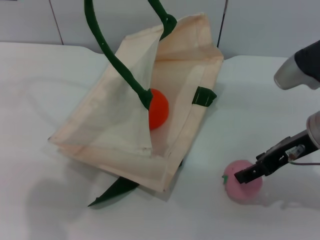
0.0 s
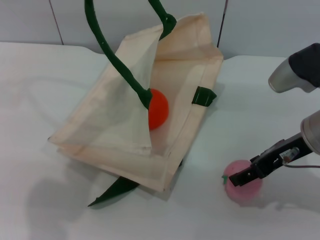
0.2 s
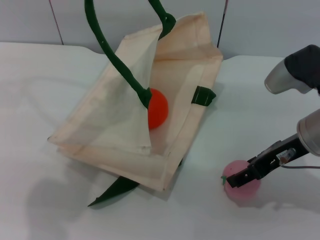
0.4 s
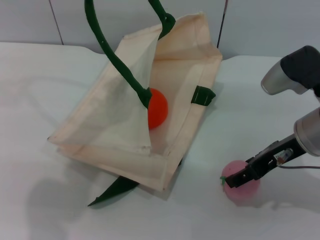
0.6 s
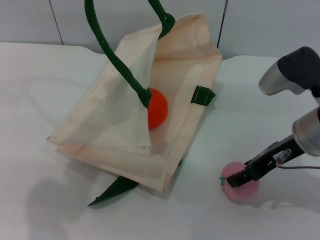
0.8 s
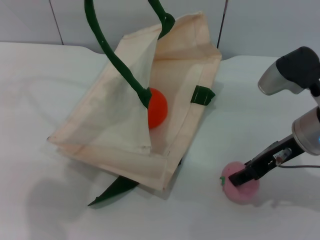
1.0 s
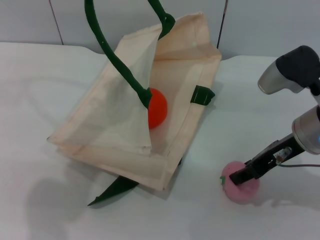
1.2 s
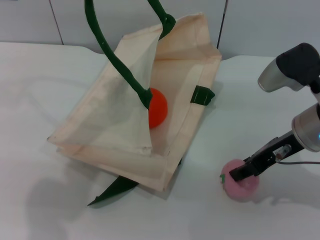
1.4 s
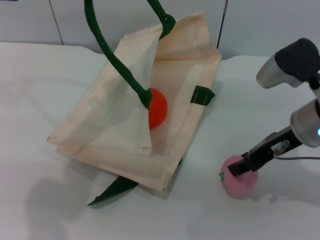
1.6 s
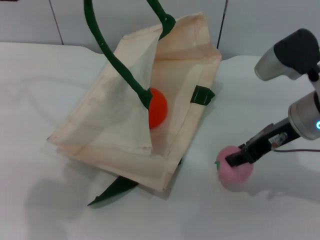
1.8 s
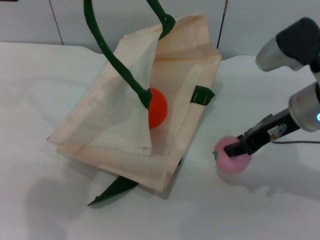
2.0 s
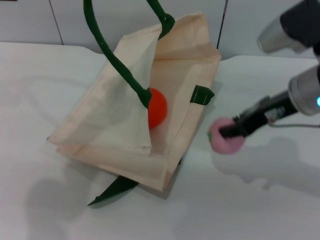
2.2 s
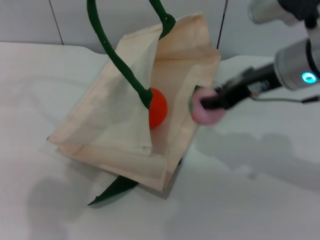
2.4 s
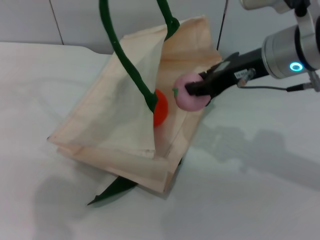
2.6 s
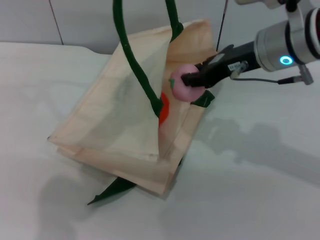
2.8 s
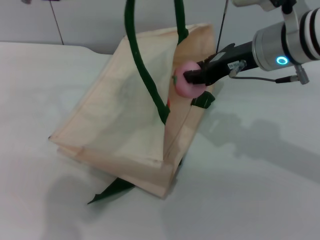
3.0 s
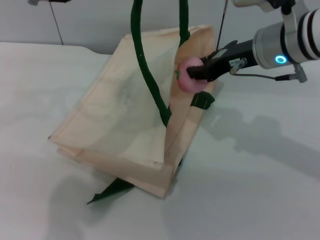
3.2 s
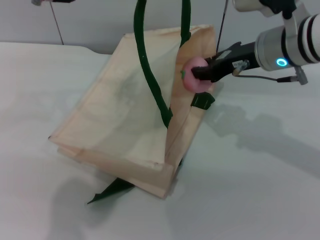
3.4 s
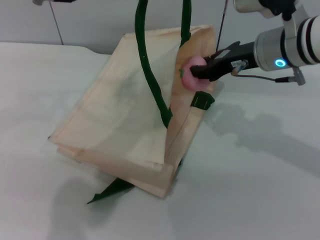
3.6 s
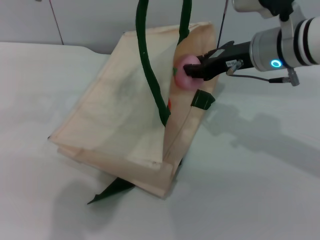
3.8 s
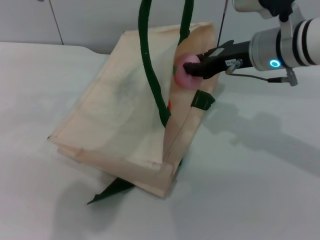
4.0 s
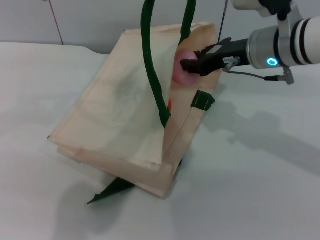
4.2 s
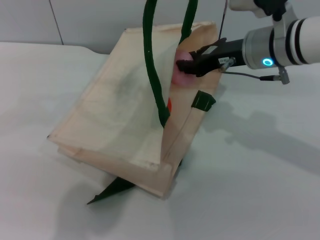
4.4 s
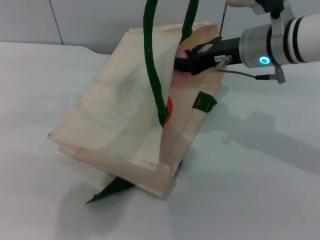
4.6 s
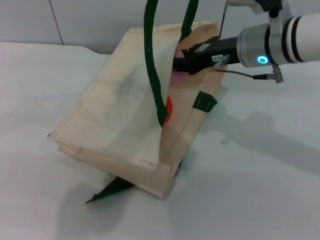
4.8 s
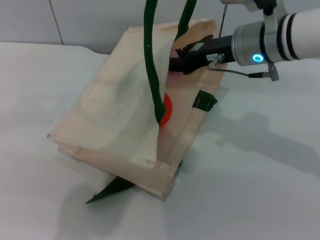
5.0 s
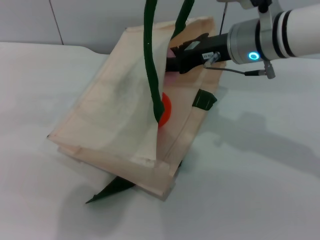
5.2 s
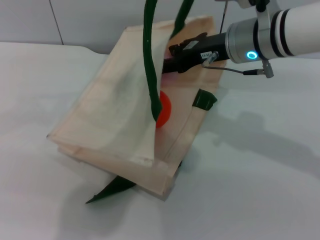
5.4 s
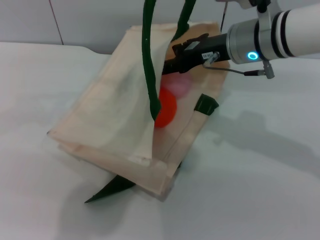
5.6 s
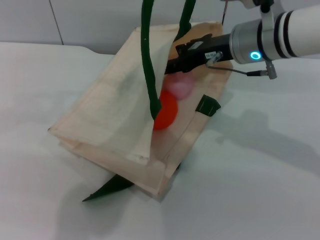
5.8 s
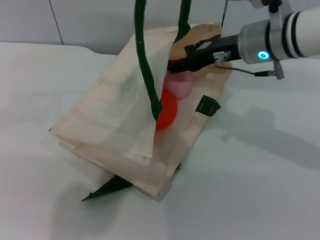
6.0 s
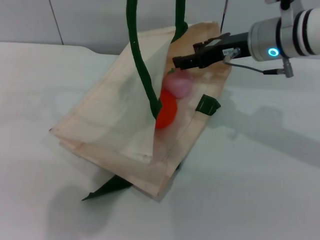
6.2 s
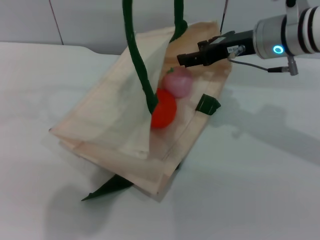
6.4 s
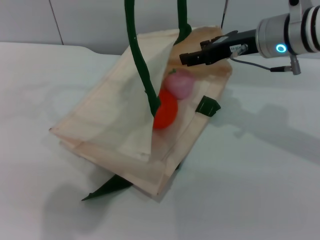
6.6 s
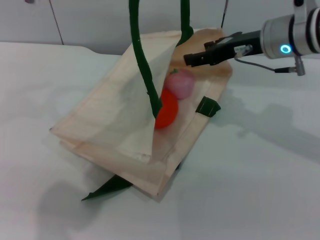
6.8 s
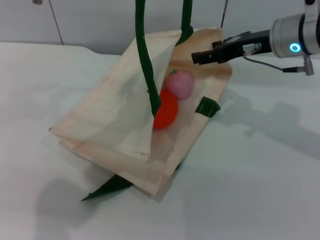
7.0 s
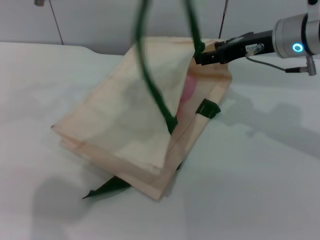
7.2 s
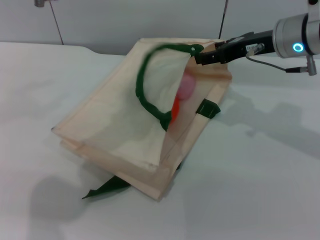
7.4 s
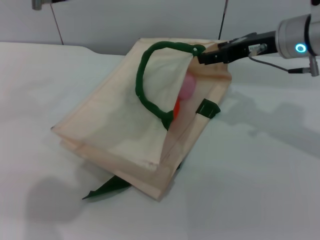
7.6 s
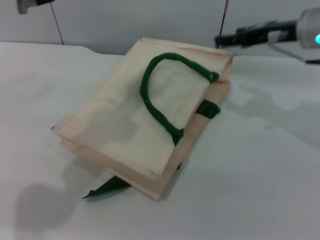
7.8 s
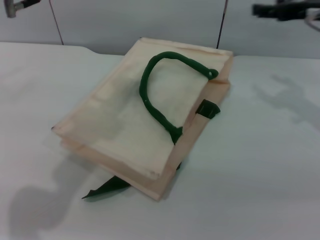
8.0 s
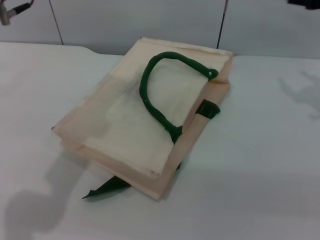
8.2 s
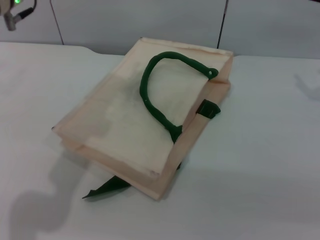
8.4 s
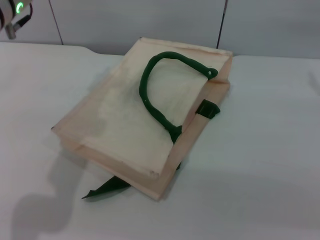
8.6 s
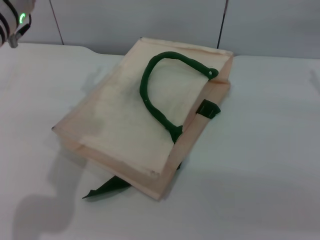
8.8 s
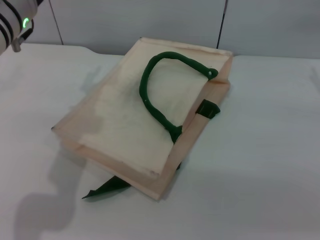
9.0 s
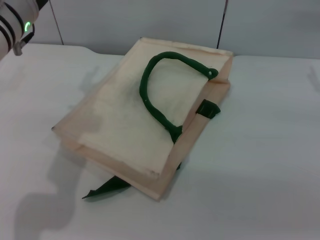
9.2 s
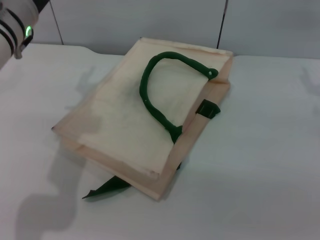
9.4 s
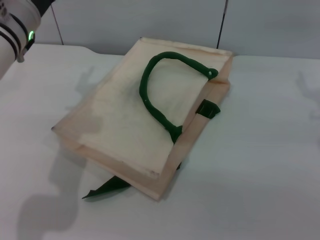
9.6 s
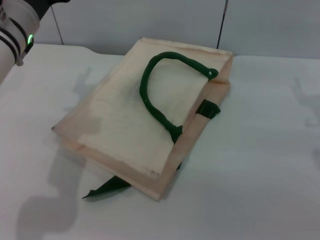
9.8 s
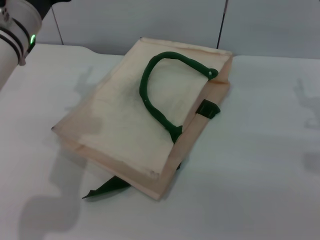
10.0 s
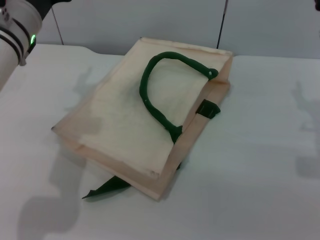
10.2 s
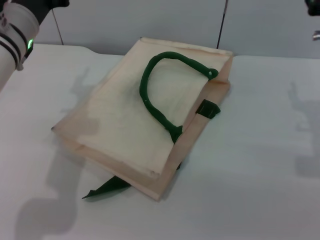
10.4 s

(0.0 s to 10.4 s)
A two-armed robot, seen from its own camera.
Task of the whole recording: pick up the orange and peach from the table and place it in the white handbag.
Step, 0.0 s - 2.2 s: Pick up the peach with the right gripper.
Step, 2.4 s - 6.8 s: Place the peach into the woven bag with the right gripper.
Step, 7.0 s - 8.0 s: Lower the woven bag with the left gripper to close it.
0.0 s - 1.4 s: The right gripper closes its fingers.
1.4 s - 3.0 s: The right gripper heads forward, upward and to the left, covering about 10 cm.
3.0 s - 4.4 s: The grippers move only a little.
4.4 s - 6.0 s: The right gripper opens up.
6.0 s - 7.4 s: The left gripper opens its fingers.
7.4 s - 9.0 s: The right gripper moves to the right, about 10 cm. The left gripper moves downward and to the left, some 10 cm.
